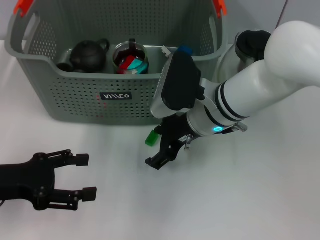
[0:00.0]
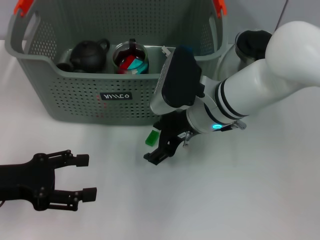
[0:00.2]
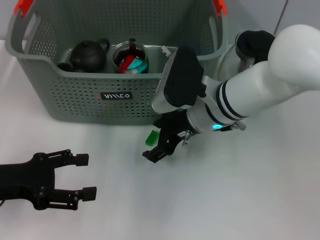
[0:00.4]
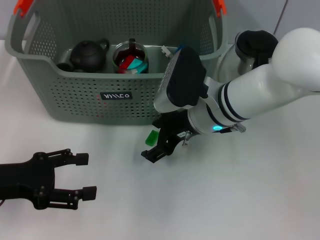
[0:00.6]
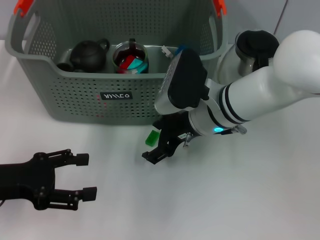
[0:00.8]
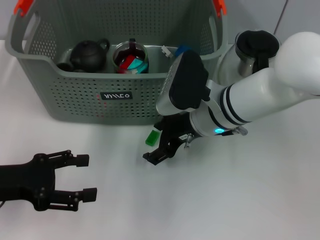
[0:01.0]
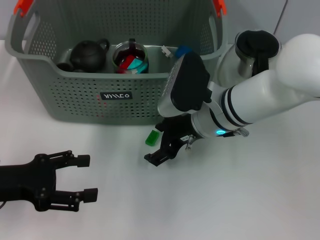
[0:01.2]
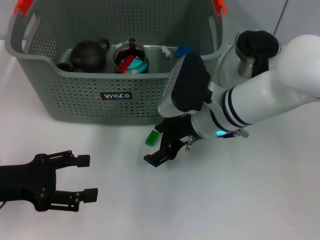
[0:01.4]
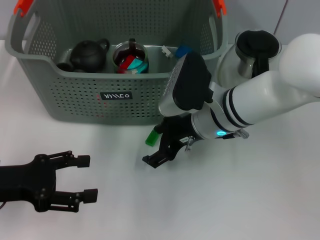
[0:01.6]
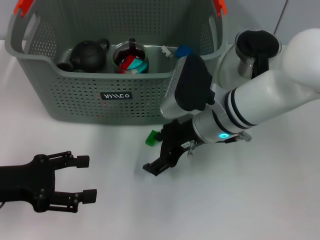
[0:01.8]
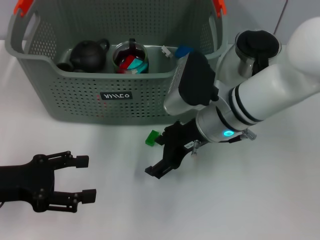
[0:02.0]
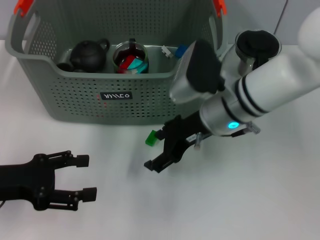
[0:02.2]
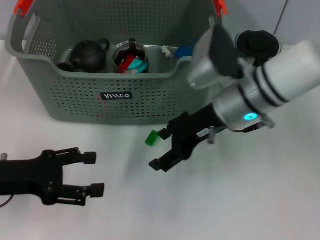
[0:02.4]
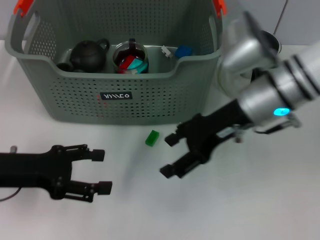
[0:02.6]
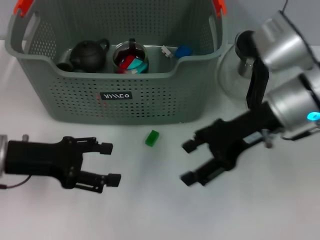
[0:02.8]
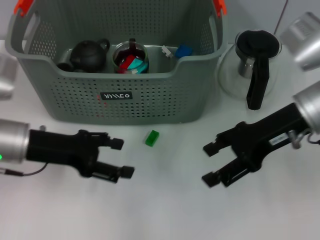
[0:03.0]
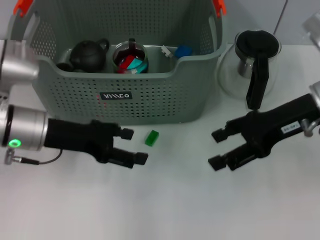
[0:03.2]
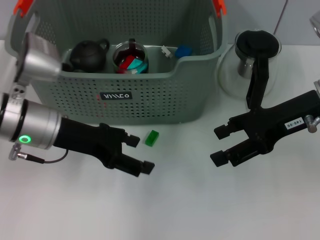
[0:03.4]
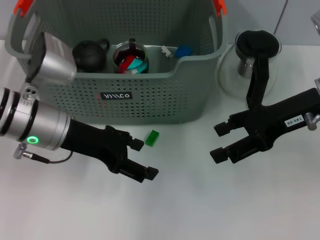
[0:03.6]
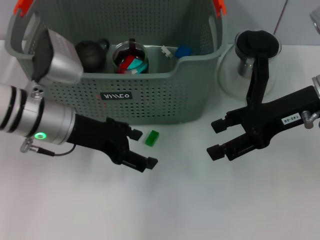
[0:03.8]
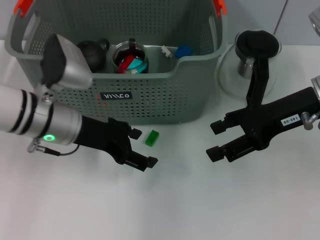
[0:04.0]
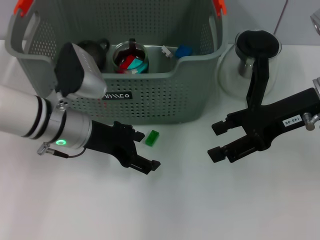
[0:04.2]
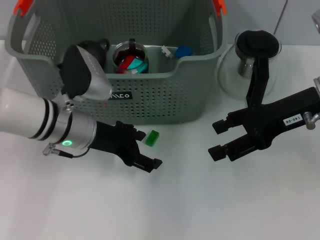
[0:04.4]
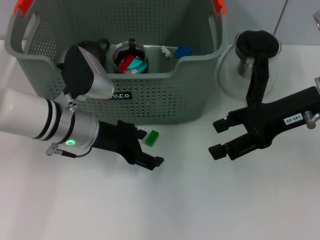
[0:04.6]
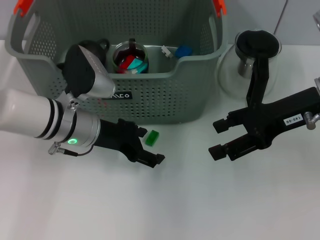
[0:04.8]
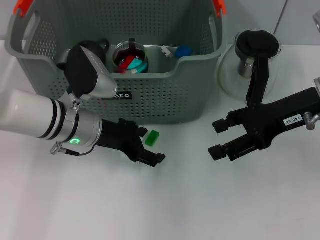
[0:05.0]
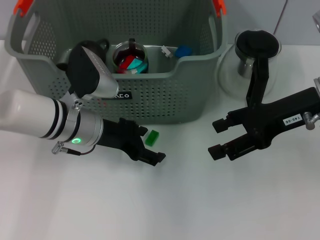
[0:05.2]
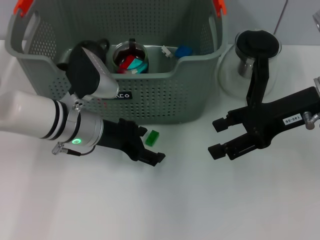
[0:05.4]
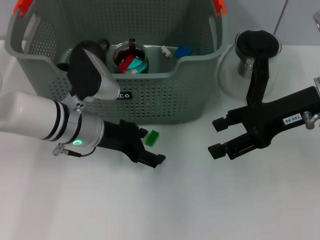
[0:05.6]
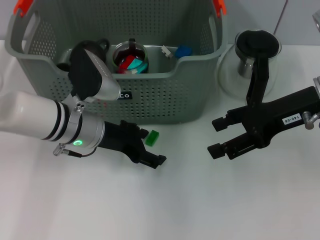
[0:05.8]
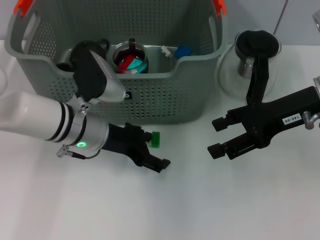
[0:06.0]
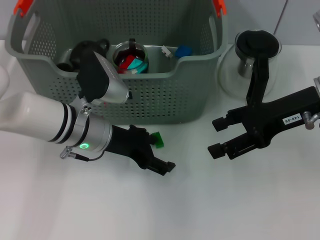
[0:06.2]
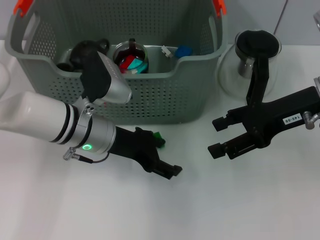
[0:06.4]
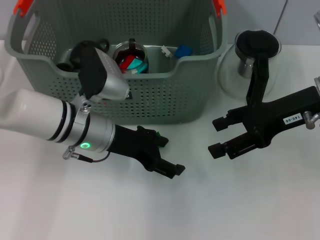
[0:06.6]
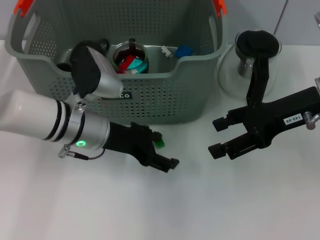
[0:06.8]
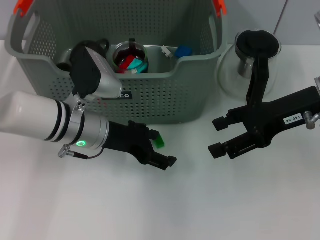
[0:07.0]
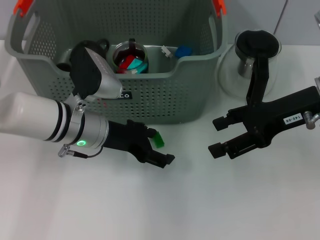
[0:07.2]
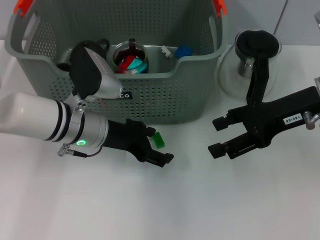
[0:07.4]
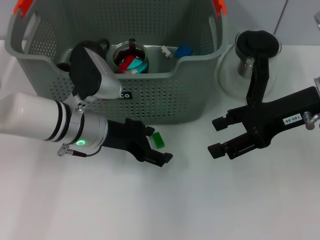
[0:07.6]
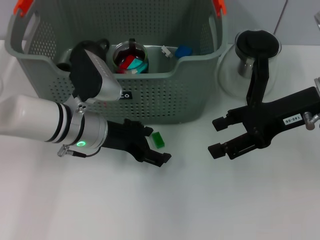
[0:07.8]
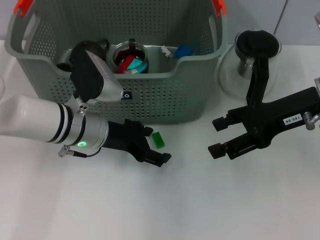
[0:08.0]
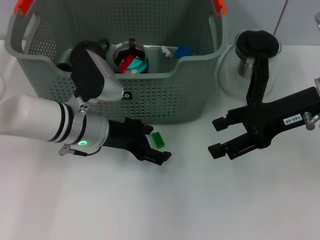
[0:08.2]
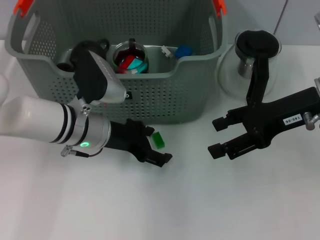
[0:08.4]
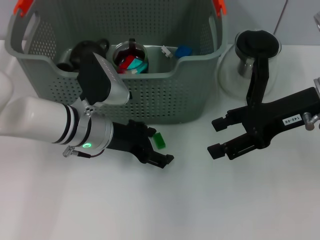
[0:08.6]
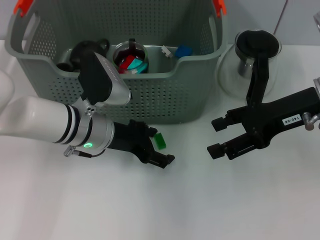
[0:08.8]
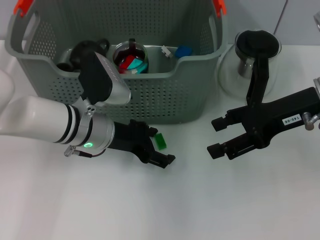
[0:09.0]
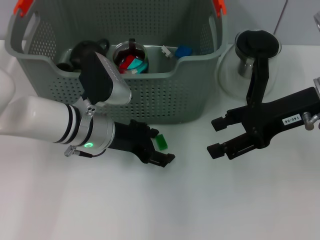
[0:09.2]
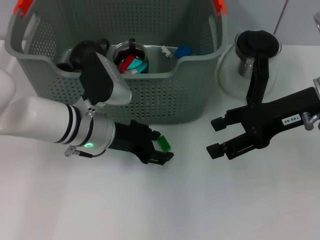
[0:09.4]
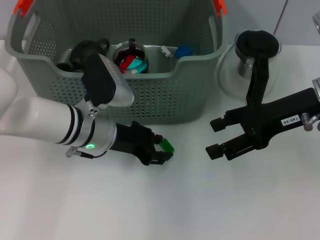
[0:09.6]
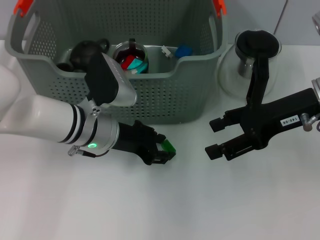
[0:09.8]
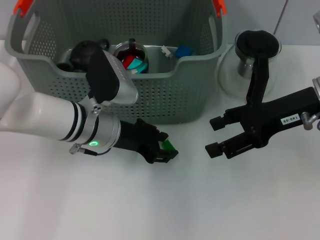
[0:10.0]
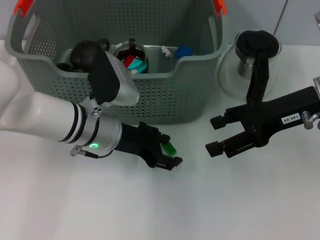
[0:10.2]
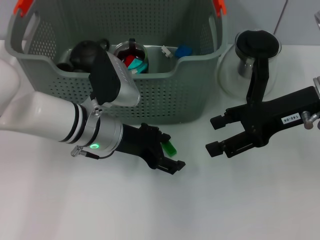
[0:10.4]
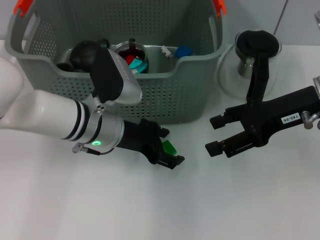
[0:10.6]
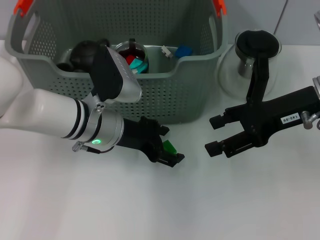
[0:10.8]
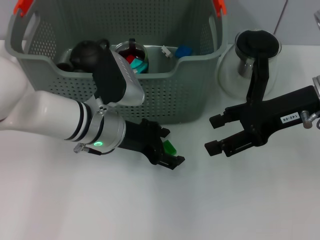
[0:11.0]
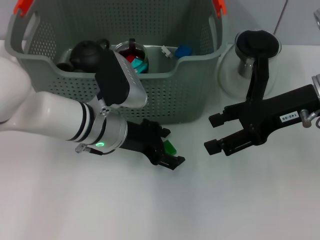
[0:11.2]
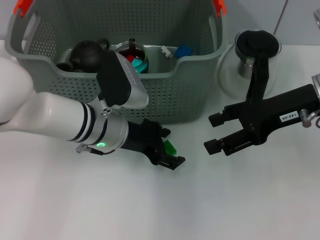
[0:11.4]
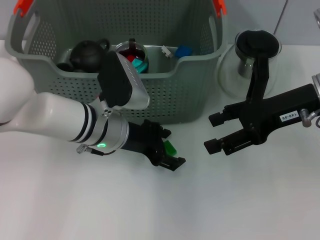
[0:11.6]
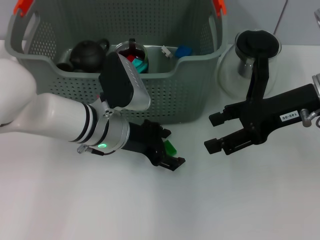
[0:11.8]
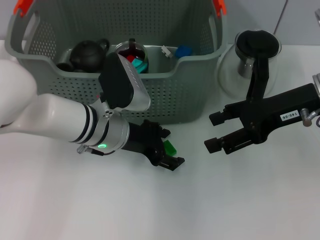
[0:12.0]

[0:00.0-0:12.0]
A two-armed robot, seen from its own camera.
Task of the whole recording: pick up the teacup on the table and place it into the storage bin, pick up the block on the table and place it into the storage bin.
0:00.0 to 0:01.6: The grippers move only a little.
0:01.6 to 0:03.0: The right gripper heads to the right and upward, covering roughly 15 cm. The left gripper is displaced forward and to the right by roughly 10 cm.
0:03.0 to 0:04.4: The left gripper shifts roughly 10 cm to the right.
0:04.4 to 0:07.6: The grippers stay close to where they were, moving slightly.
0:07.6 to 0:09.0: Neither gripper changes place.
0:09.0 to 0:12.0: The grippers move only a little.

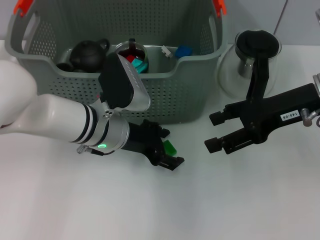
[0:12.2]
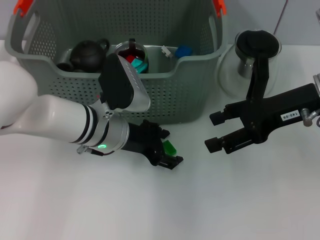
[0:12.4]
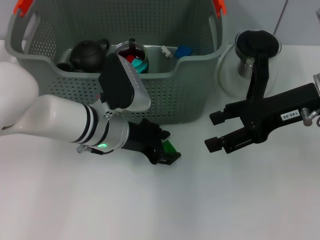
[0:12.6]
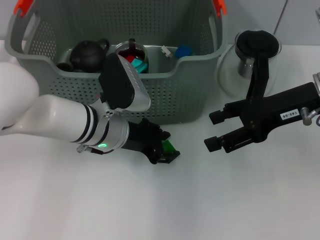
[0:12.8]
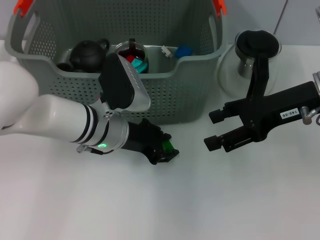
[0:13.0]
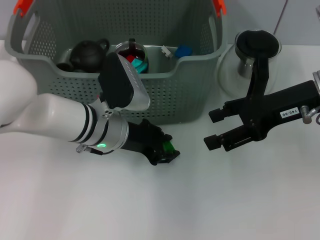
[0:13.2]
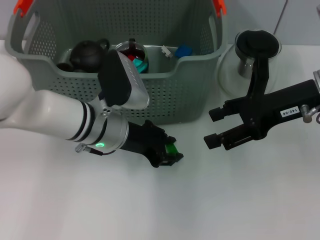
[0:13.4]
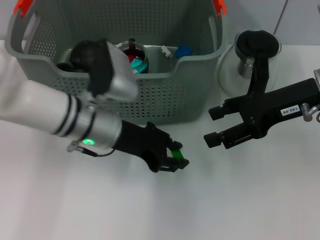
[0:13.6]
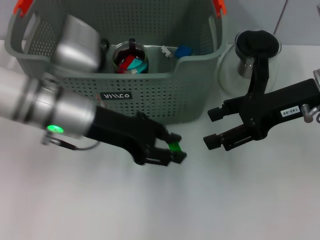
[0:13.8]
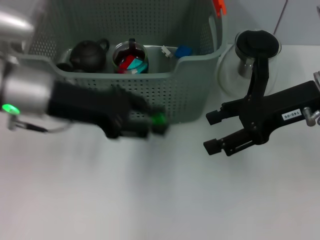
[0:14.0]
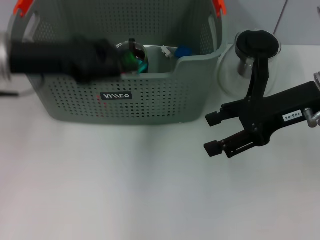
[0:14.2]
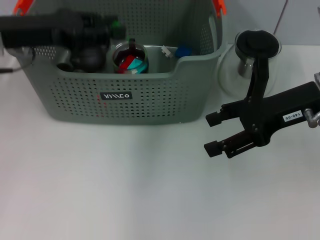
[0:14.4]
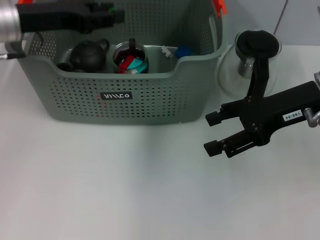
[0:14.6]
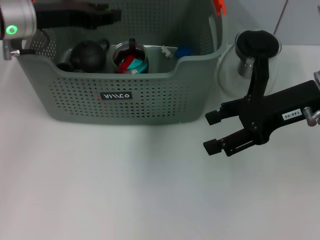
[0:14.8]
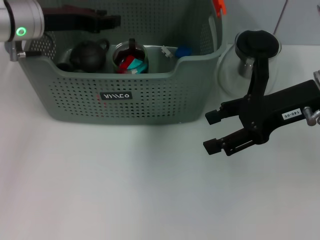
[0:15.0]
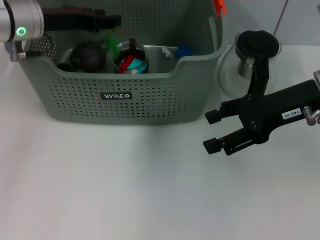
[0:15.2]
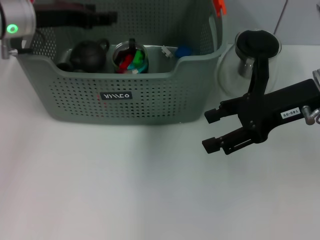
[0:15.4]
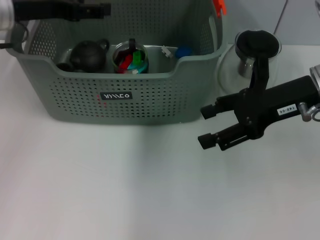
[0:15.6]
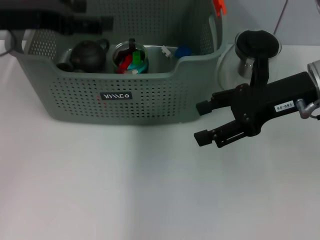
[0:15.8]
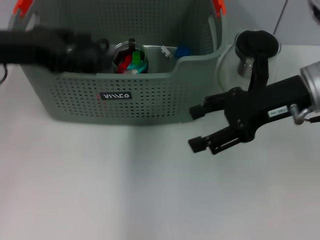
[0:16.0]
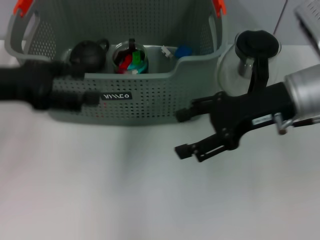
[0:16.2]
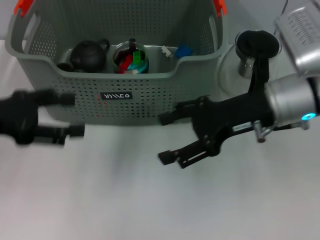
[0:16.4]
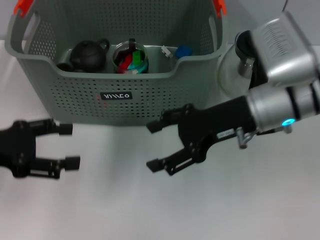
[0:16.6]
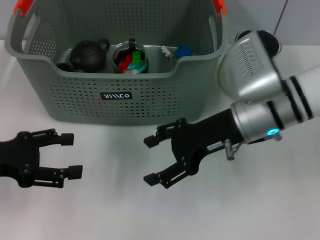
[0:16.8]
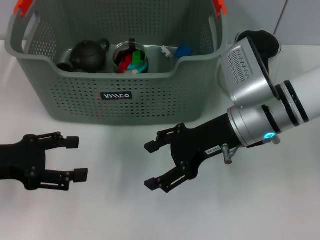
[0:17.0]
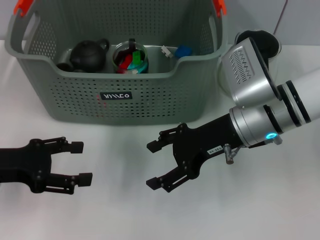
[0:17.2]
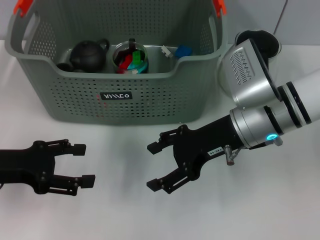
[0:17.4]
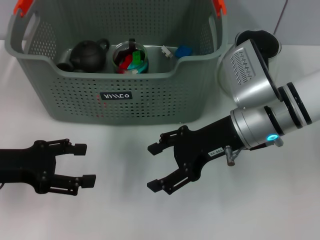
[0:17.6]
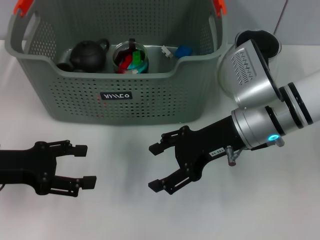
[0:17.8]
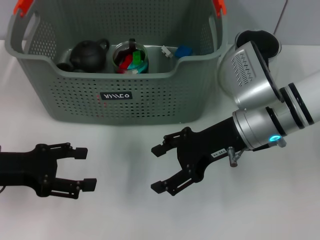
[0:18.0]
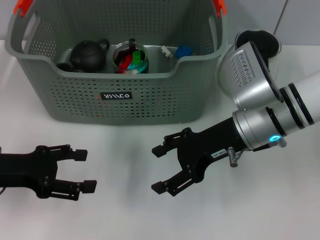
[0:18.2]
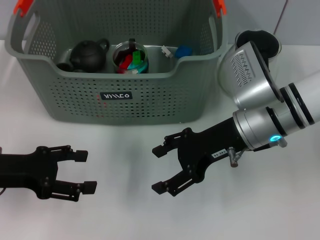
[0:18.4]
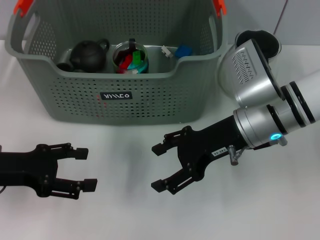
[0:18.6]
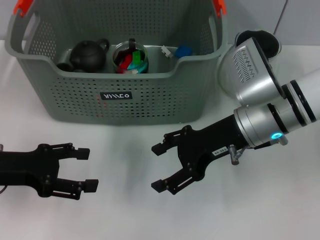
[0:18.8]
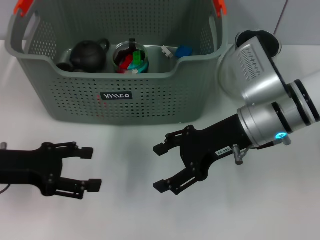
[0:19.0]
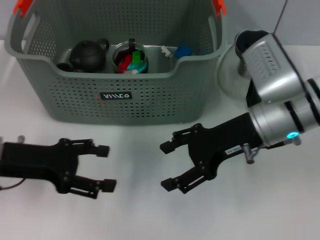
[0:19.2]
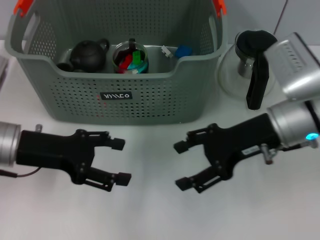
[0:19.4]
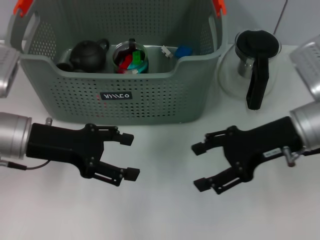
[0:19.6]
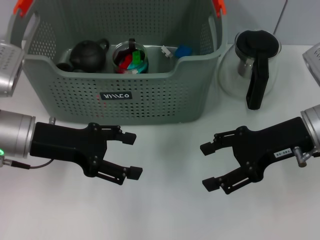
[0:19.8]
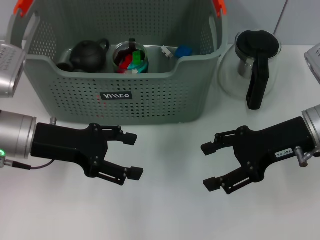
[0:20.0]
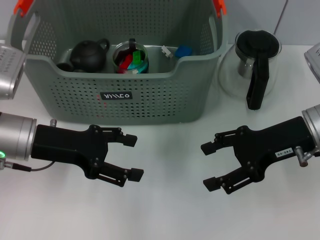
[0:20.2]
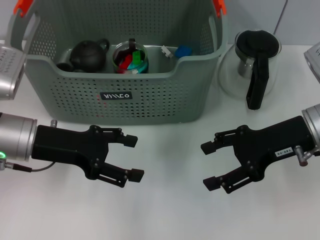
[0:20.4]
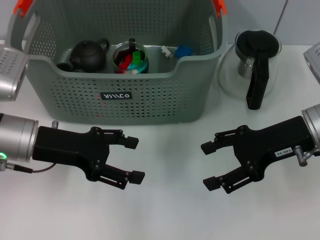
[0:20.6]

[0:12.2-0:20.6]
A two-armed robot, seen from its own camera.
Task of the whole recording: pick up the teacup on the table and place it into the storage bin, pick up the block on the table and place it into the storage bin.
Step, 0:13.8 to 0:15.4: Place the green block in the storage box with left gripper.
0:12.2 to 0:13.6: The left gripper closes up.
0:13.6 to 0:15.0: The left gripper travels to the left, forward and upward by roughly 15 cm.
0:15.0 to 0:16.4: The right gripper shifts approximately 5 cm to the left, while the left gripper goes some 20 cm backward and to the left, and opens its fingers.
0:16.4 to 0:17.8: The left gripper is displaced downward by some 5 cm.
0:17.8 to 0:19.2: The grippers stay close to where they were, moving slightly.
0:19.2 to 0:20.6: The left gripper ends up approximately 5 cm from where it was; the right gripper goes approximately 5 cm to the right.
